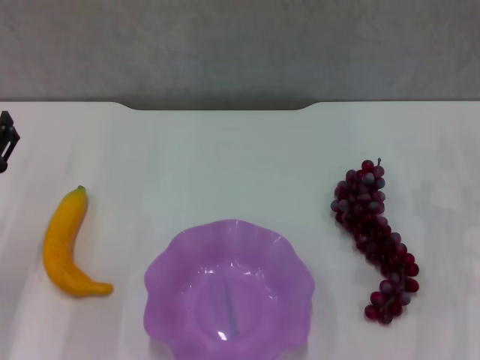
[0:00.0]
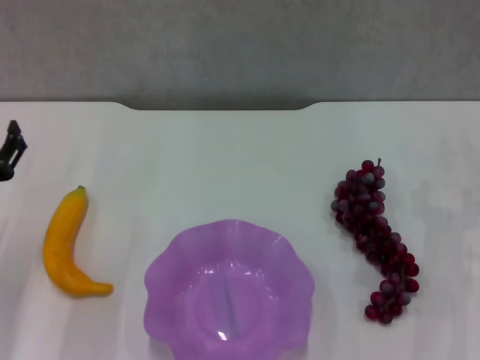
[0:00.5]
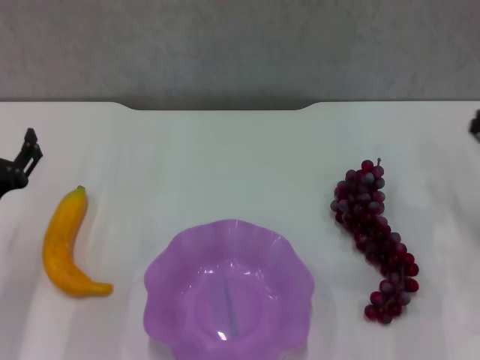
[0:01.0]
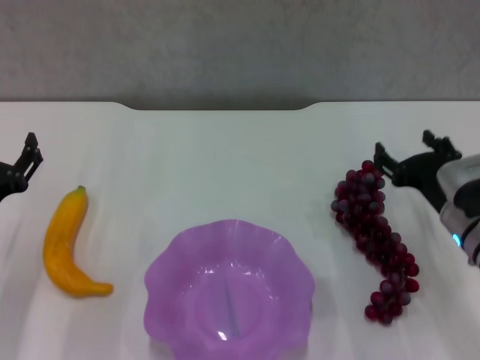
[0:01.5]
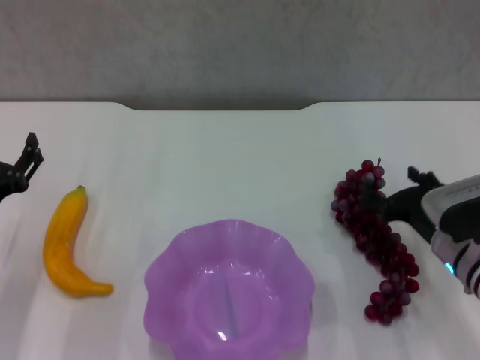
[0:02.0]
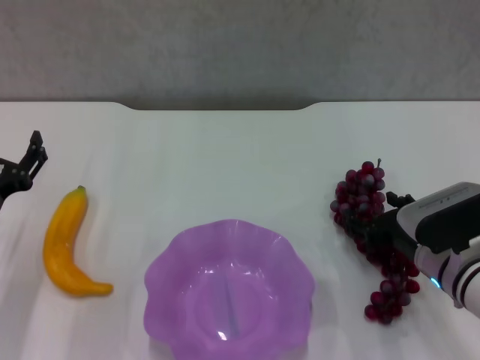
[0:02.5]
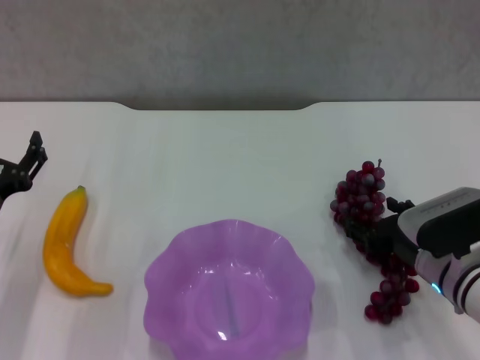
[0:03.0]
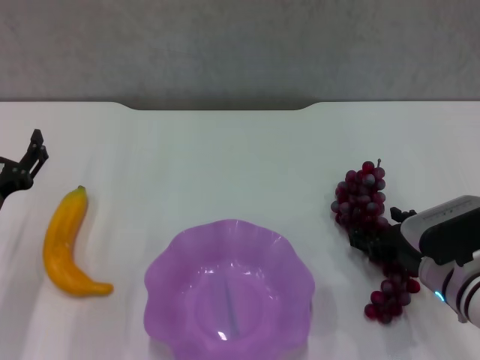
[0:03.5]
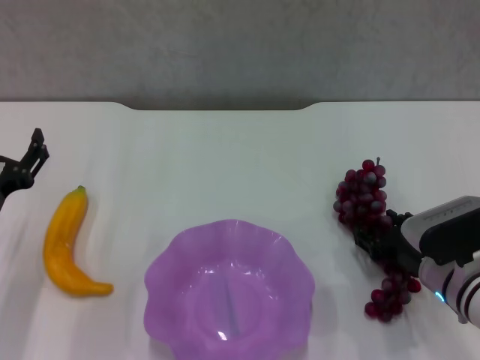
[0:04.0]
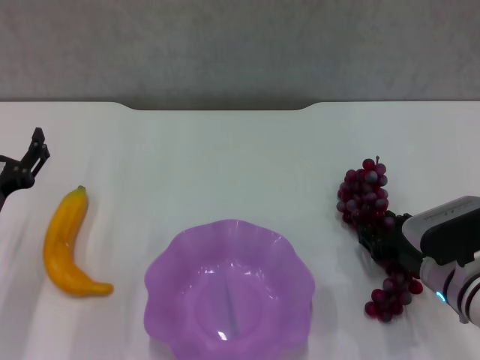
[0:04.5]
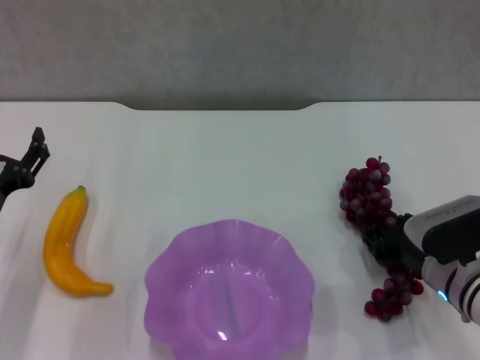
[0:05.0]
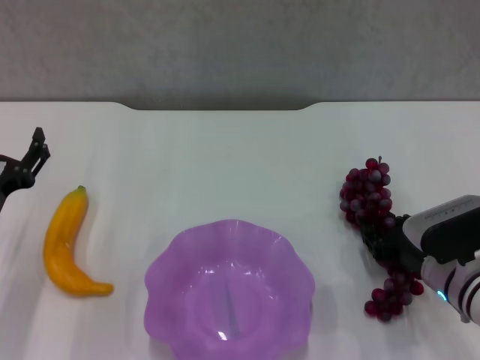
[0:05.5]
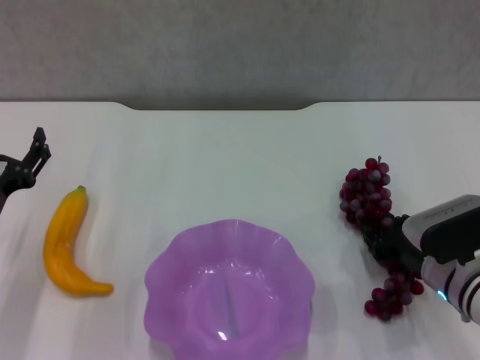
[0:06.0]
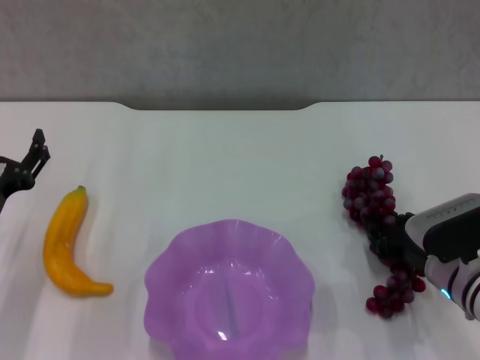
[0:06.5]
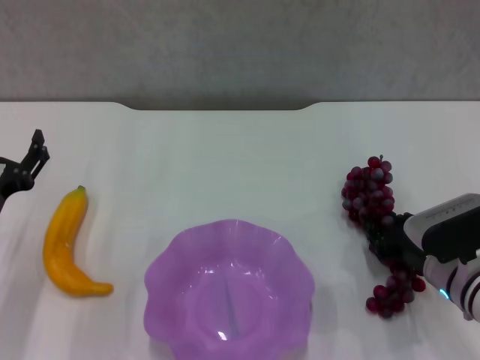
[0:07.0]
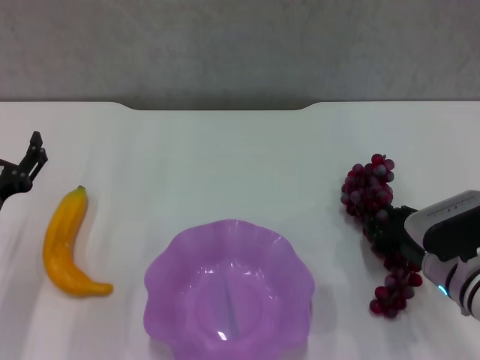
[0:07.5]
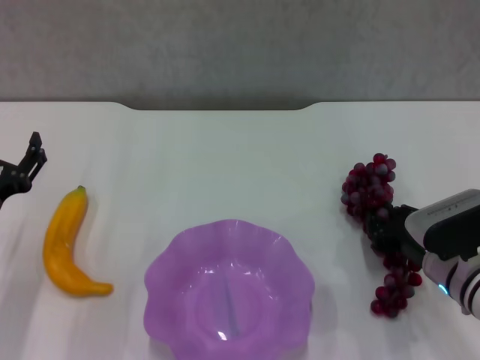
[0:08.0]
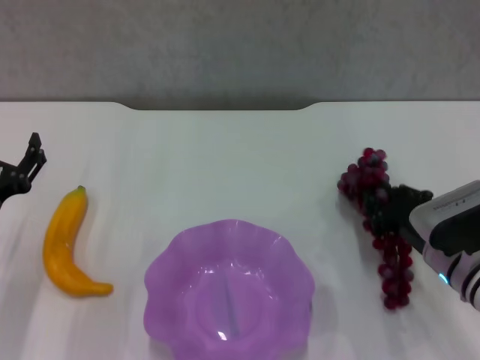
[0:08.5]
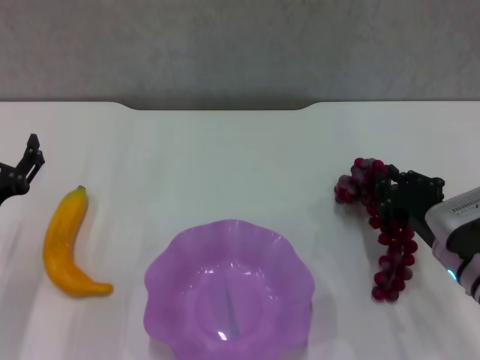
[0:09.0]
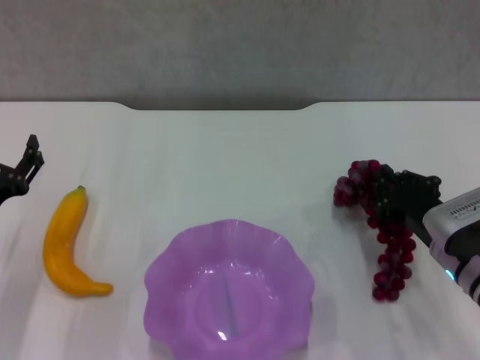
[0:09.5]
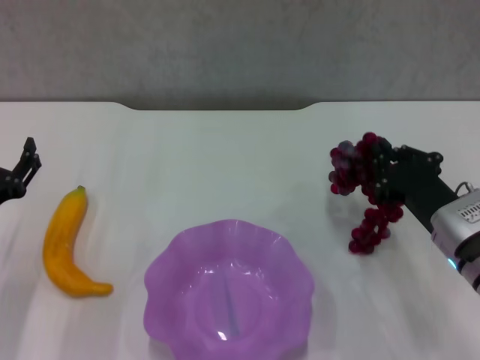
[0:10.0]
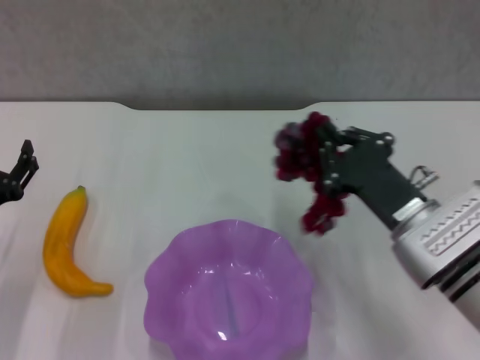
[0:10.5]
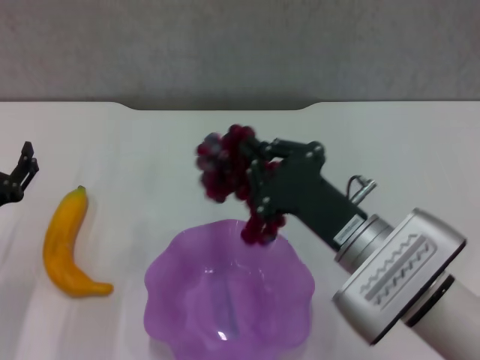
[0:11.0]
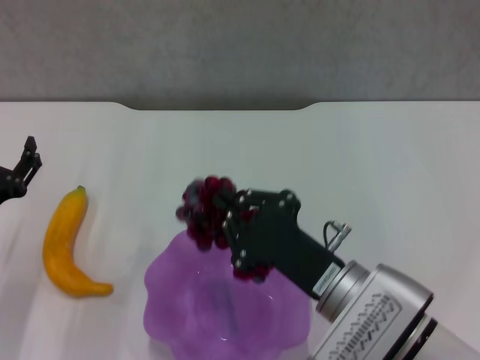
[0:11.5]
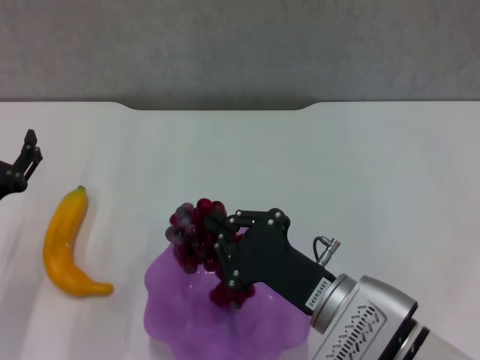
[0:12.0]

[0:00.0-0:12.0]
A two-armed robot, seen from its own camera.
Step, 0:00.0 to 0:05.5: Grasp the grape with right gripper.
0:00.0 to 0:02.0: The right gripper is displaced to the left by approximately 10 cm, and opens.
0:02.0 to 0:04.0: There are only small adjustments of the grippers.
0:04.0 to 0:06.0: The right gripper closes its fingers.
0:06.0 to 0:08.0: Neither gripper changes place.
0:10.0 to 0:12.0: The right gripper heads to the left and backward, covering about 15 cm.

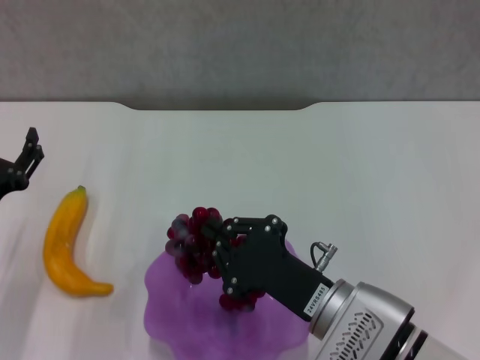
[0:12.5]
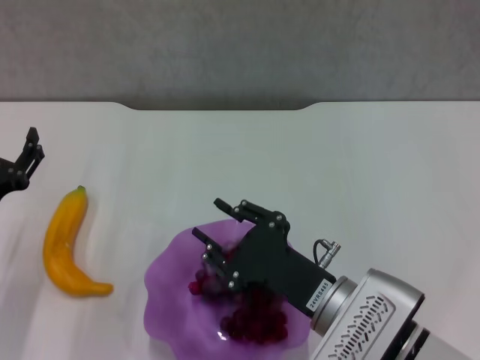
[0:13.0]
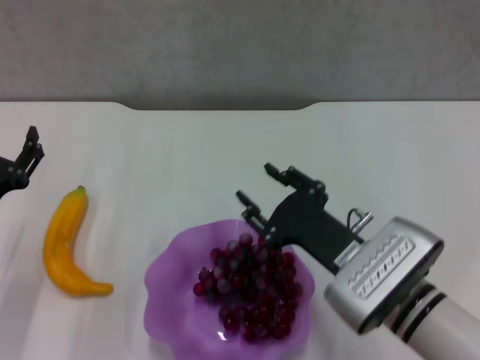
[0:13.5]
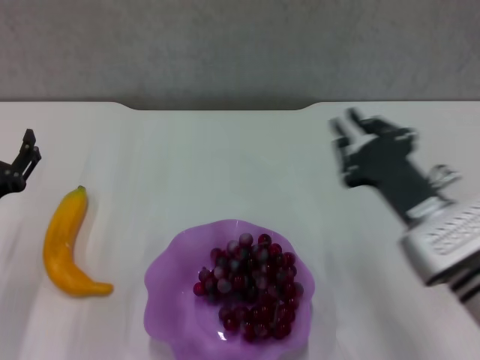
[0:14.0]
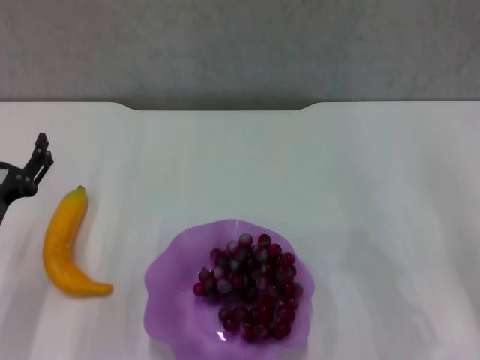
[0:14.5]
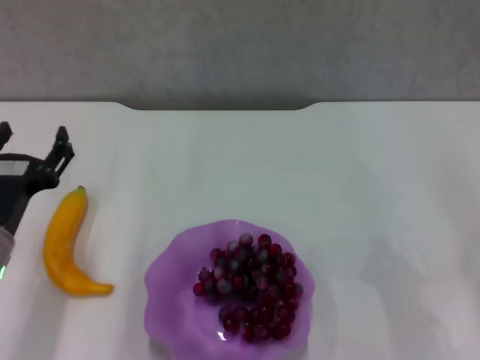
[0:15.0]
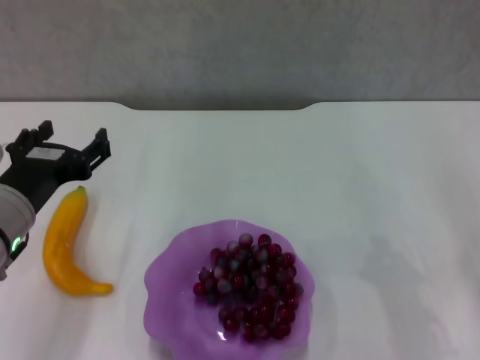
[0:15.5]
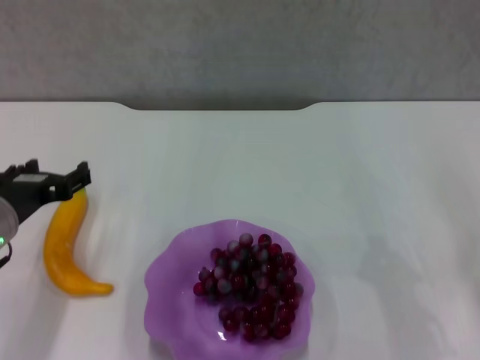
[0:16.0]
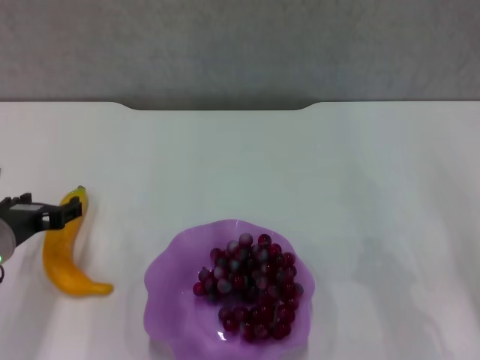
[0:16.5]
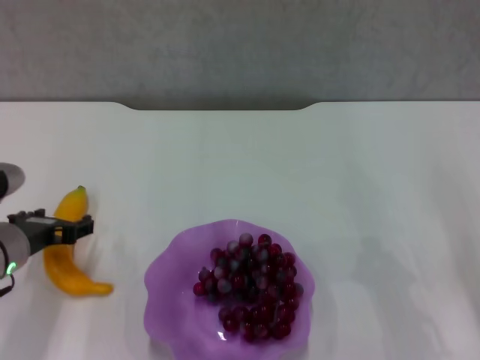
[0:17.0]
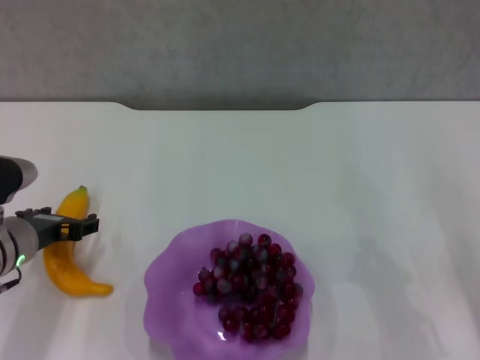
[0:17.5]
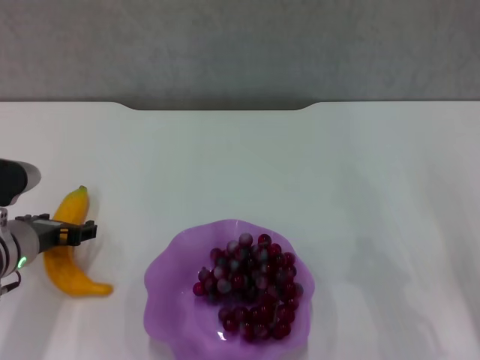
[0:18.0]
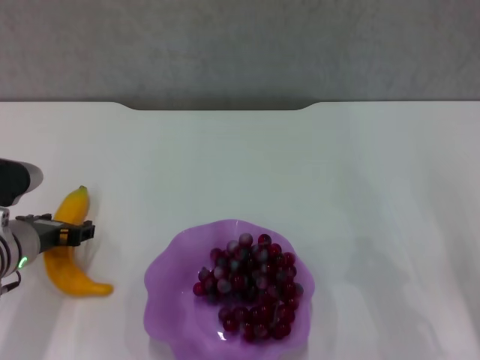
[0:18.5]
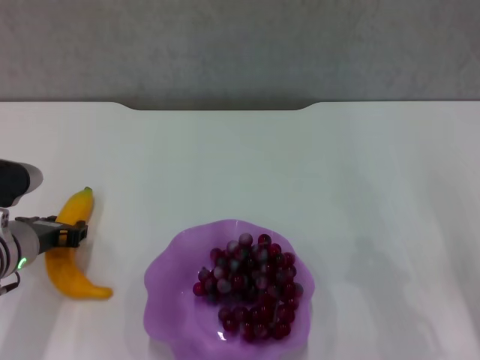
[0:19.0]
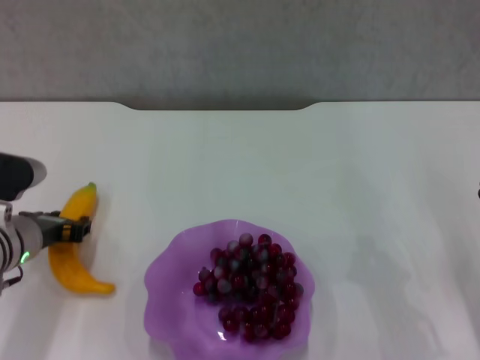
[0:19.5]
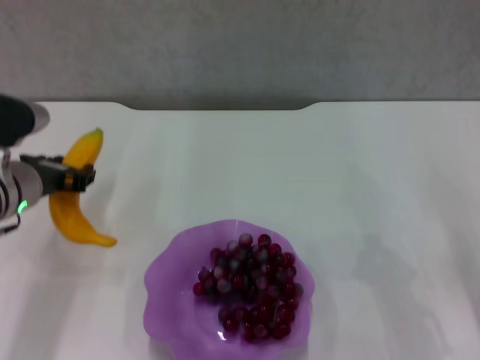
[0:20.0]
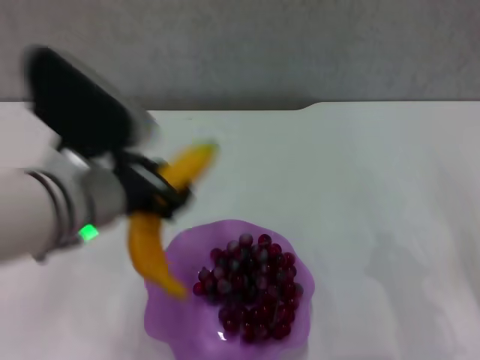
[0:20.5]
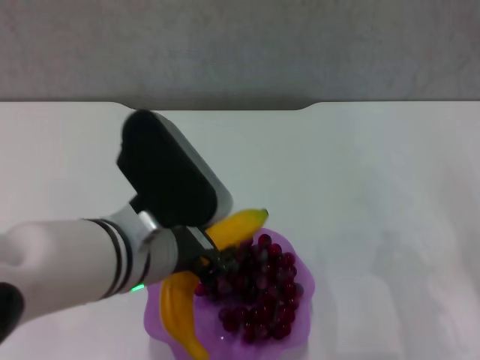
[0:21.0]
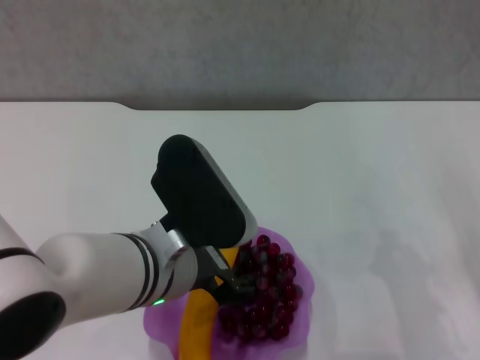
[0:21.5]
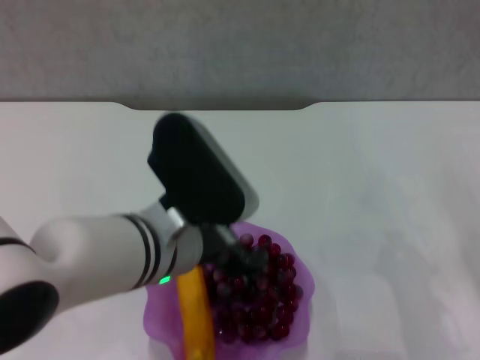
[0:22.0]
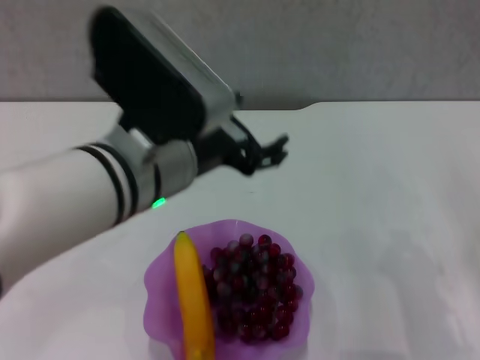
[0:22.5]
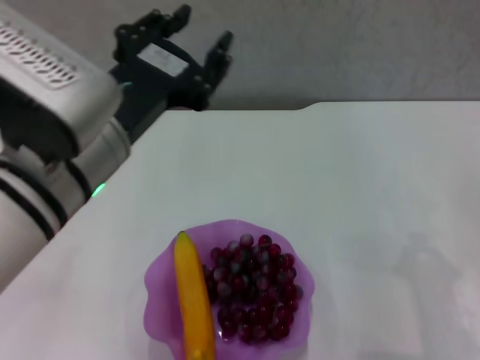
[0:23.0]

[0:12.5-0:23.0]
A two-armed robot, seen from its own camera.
Step, 0:13.0 to 0:18.5: Grasp the banana with left gripper.
Step, 0:19.5 to 0:22.0: Place the grape in the purple plate with left gripper.
0:12.5 to 0:14.5: The right gripper travels to the right by roughly 20 cm, and opens, then closes again.
0:16.5 to 0:19.0: The left gripper closes.
0:19.0 to 0:21.0: The left gripper travels to the right, upward and backward by approximately 20 cm.
0:21.0 to 0:23.0: The left gripper travels upward by about 5 cm.

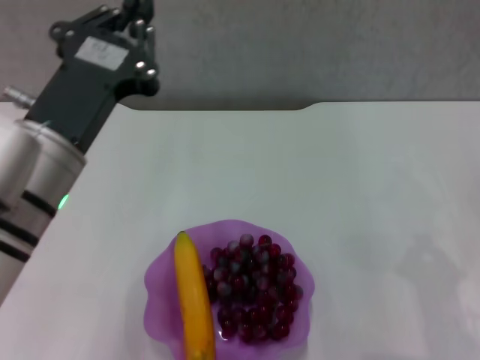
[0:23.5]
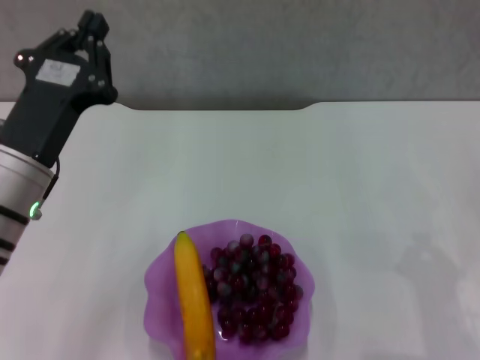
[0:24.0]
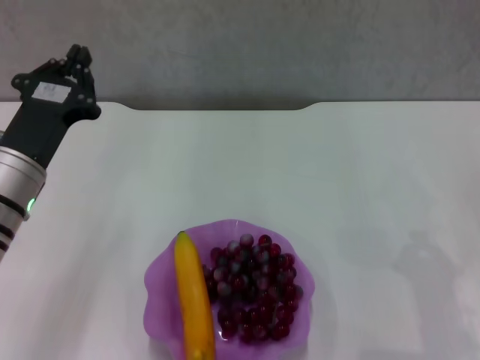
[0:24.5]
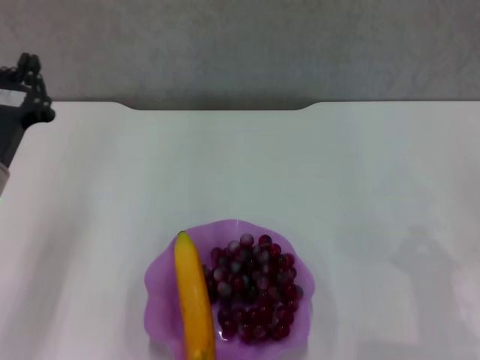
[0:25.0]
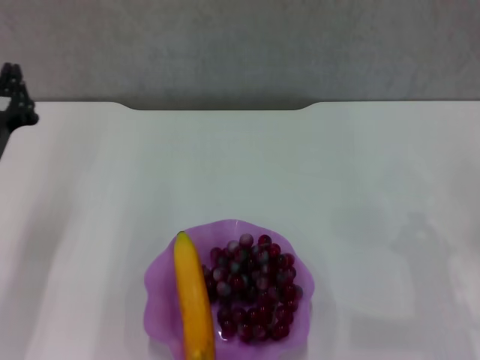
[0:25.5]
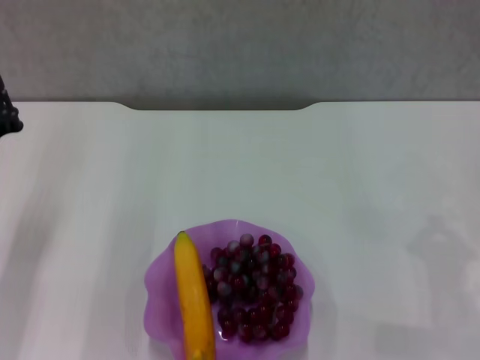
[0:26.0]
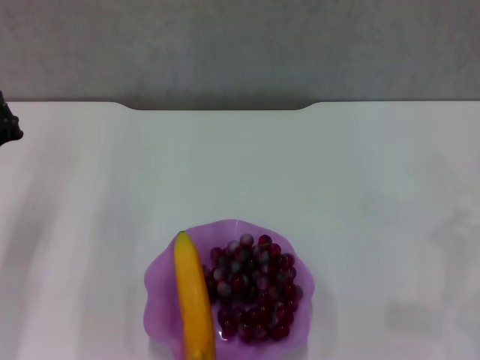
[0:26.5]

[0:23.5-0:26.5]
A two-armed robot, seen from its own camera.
0:23.5 to 0:25.0: The left gripper is displaced to the left, downward and forward by about 15 cm.
